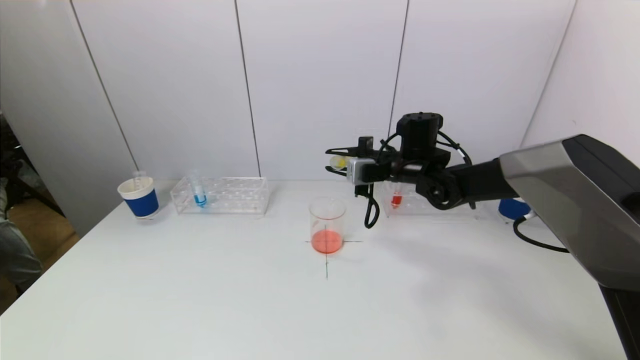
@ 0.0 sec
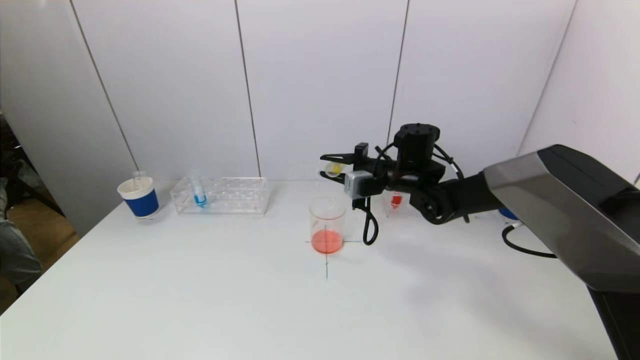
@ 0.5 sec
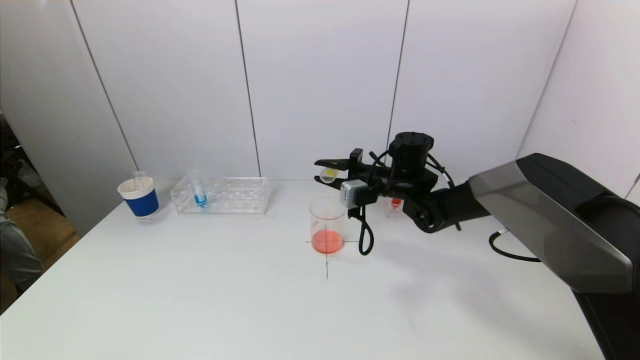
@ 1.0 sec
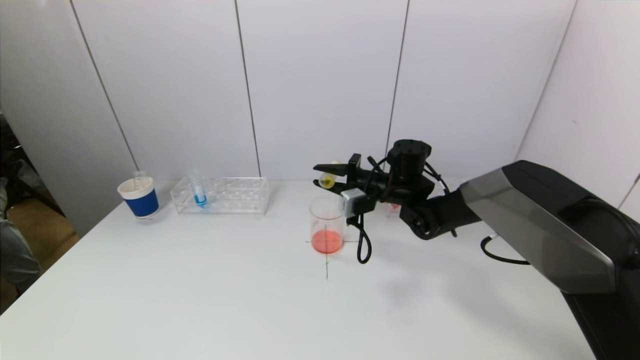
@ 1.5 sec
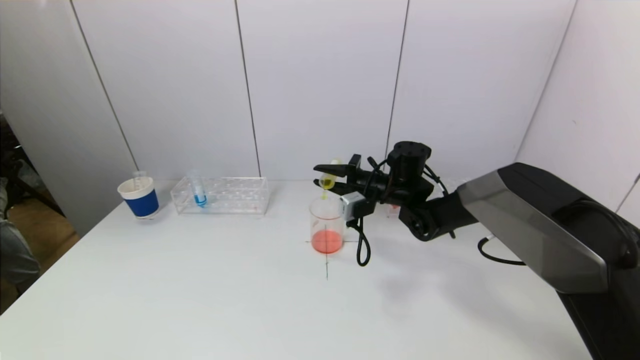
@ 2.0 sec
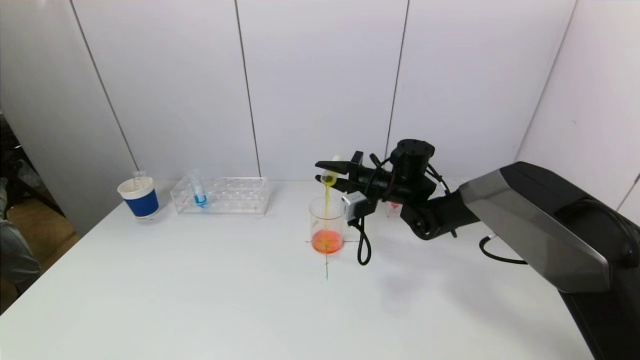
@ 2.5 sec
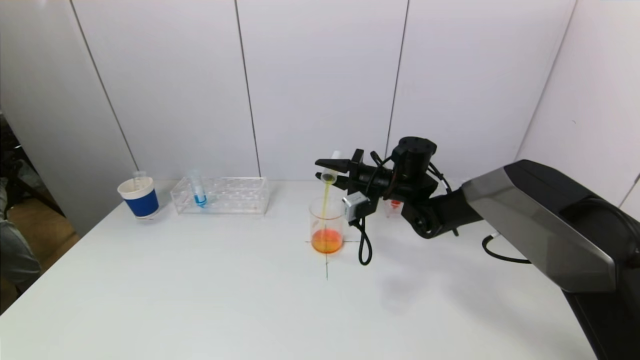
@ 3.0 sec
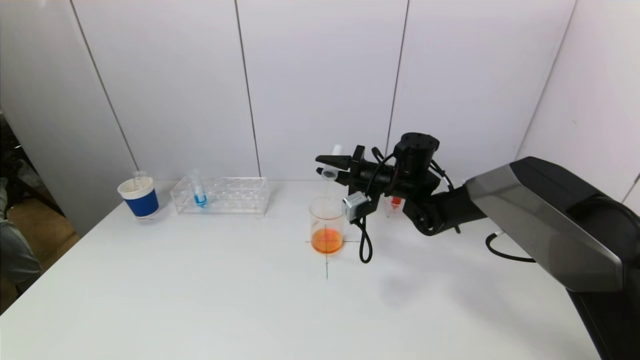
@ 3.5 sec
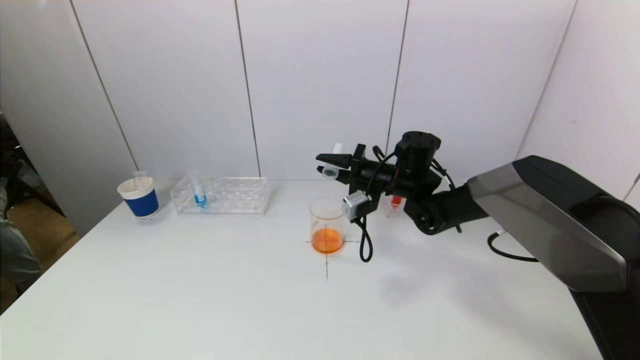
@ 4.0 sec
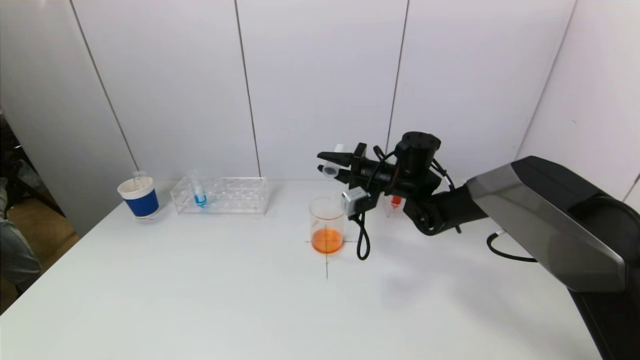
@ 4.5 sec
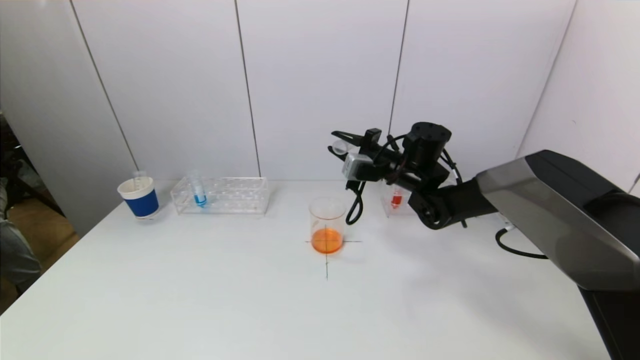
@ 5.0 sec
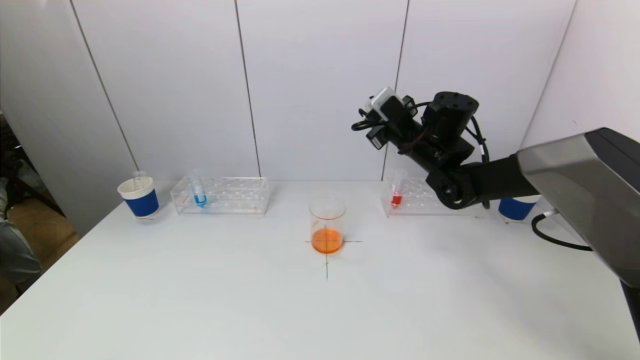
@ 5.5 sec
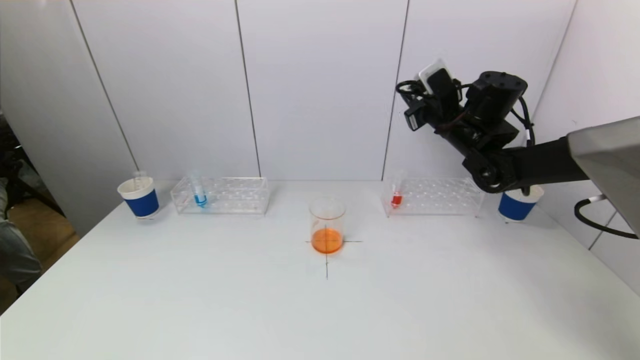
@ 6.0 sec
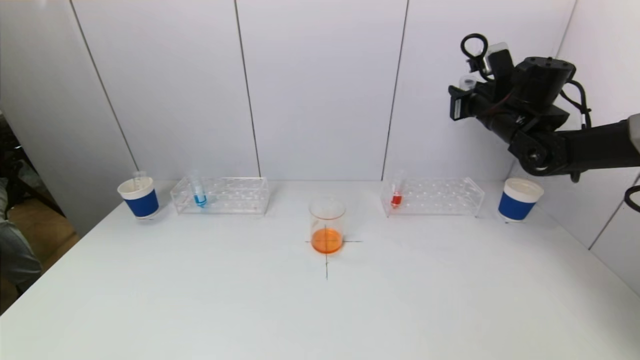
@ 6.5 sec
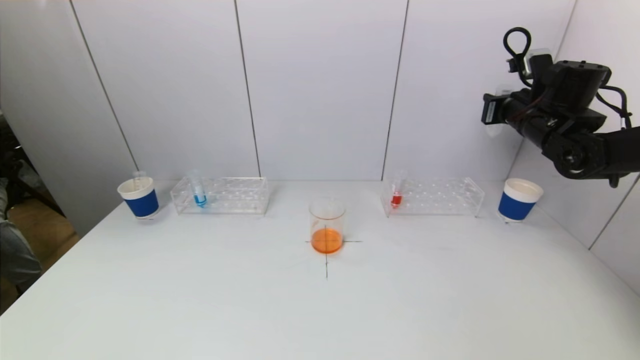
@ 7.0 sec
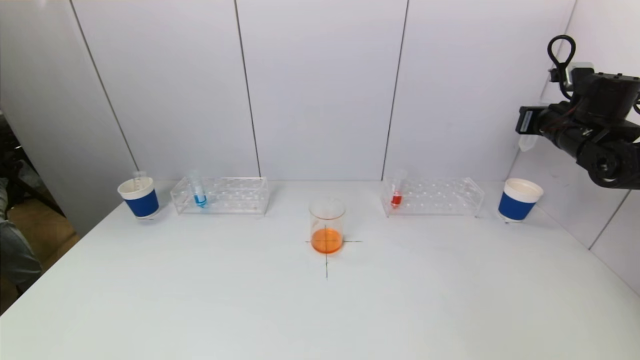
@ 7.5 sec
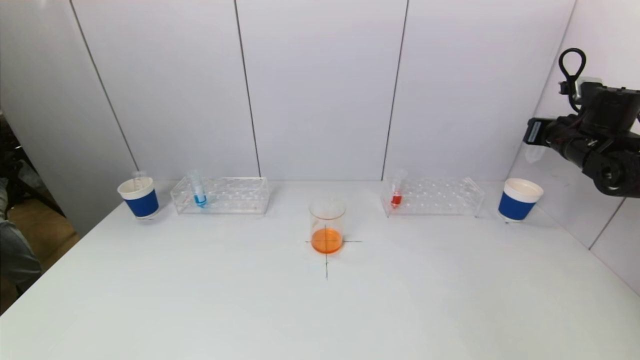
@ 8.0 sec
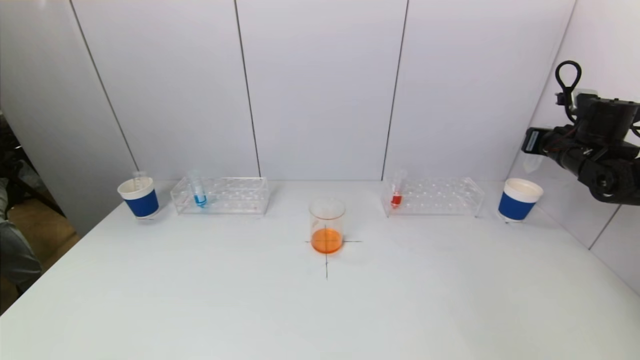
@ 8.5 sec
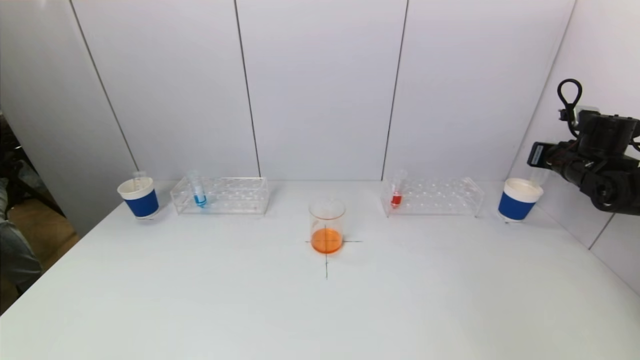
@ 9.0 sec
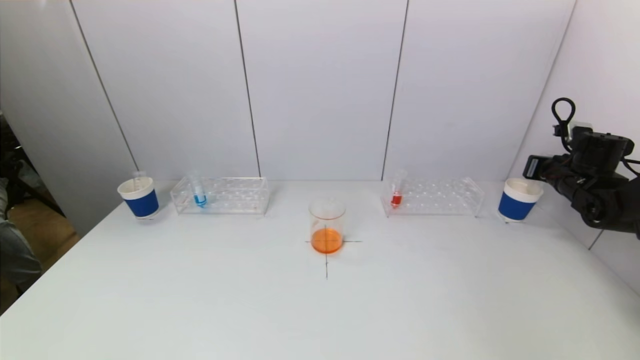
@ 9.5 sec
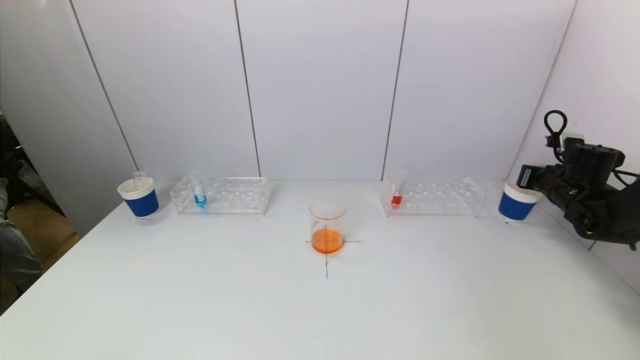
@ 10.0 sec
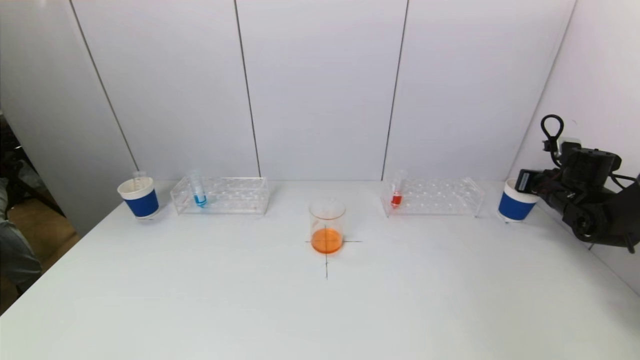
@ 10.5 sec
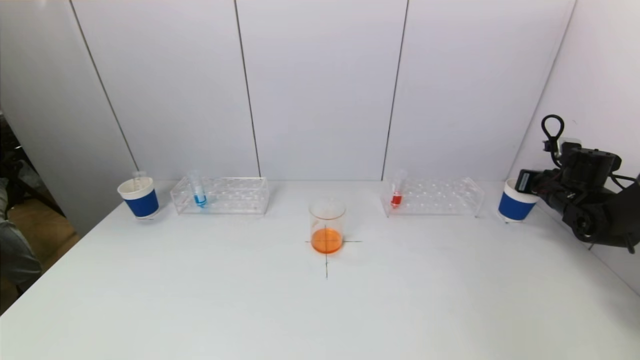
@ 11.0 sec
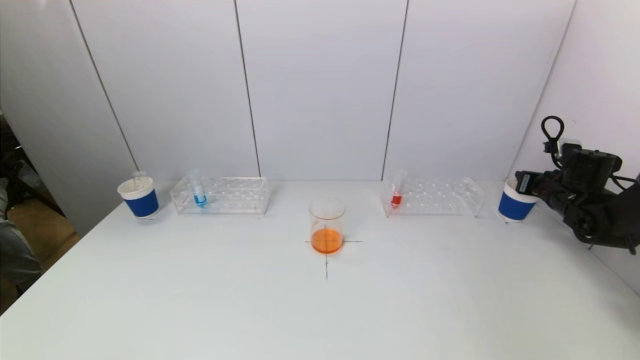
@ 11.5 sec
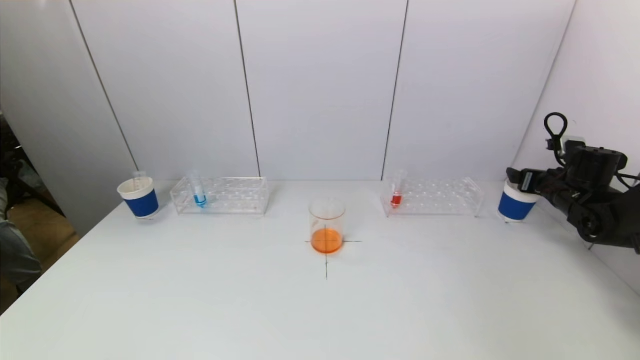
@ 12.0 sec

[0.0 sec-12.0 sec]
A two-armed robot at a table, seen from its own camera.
Task of the whole recording: pick up a test tube with pigment on left test tube rack and a test tube with pigment on right test tube rack by grippers and pour them into the beaker.
Step, 0.0 sec to 4.5 sec: Pour the yellow reagent into the graduated cylinder with the right gripper.
0.0 sec to 2.0 sec: The right gripper shifts by roughly 5 cm.
2.0 sec to 4.0 sec: There are only small adjustments of the grippers.
4.0 sec to 6.0 sec: The right gripper moves upward and to the right, roughly 15 cm.
6.0 sec to 8.0 sec: The right gripper is displaced to the right by some 20 cm.
8.0 sec to 10.0 sec: The right gripper moves downward, some 10 cm.
10.0 sec to 12.0 sec: The right gripper opens up.

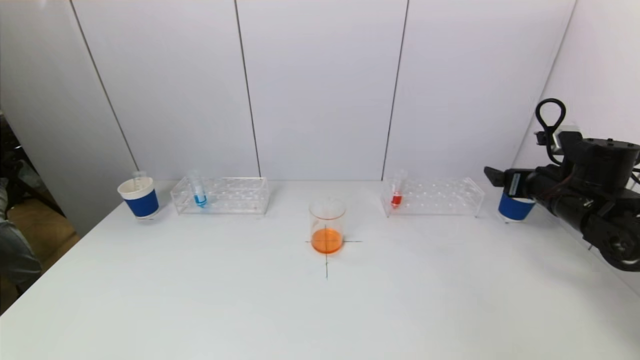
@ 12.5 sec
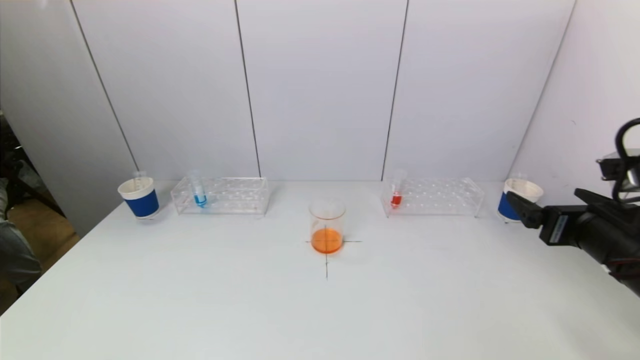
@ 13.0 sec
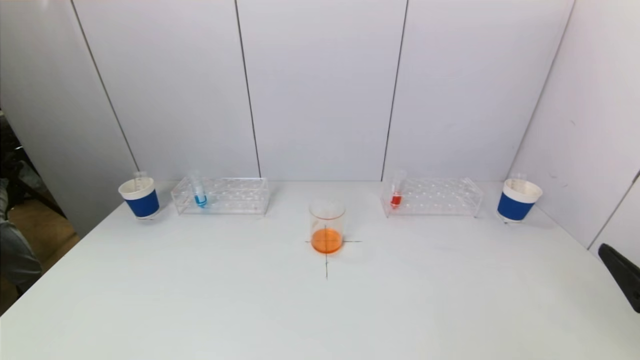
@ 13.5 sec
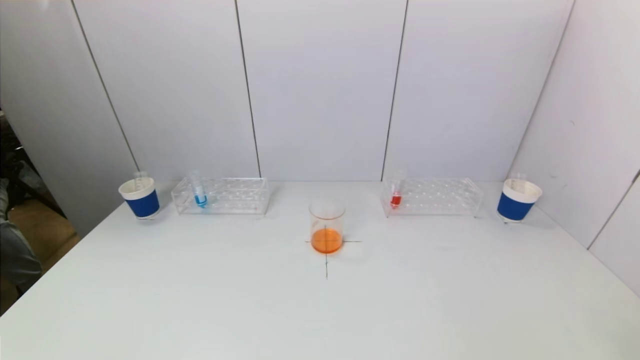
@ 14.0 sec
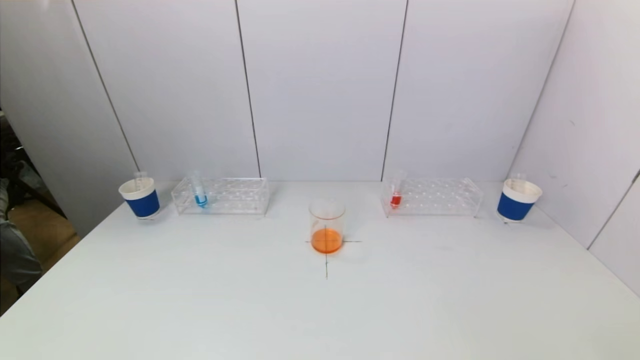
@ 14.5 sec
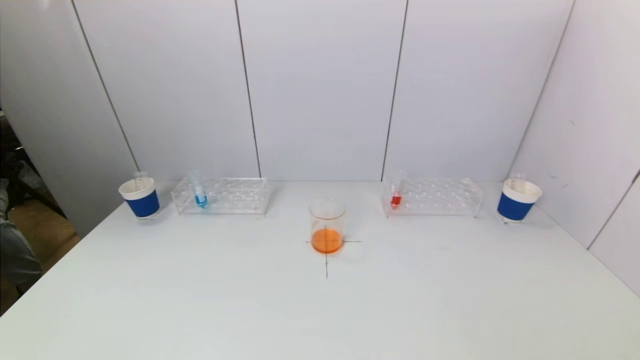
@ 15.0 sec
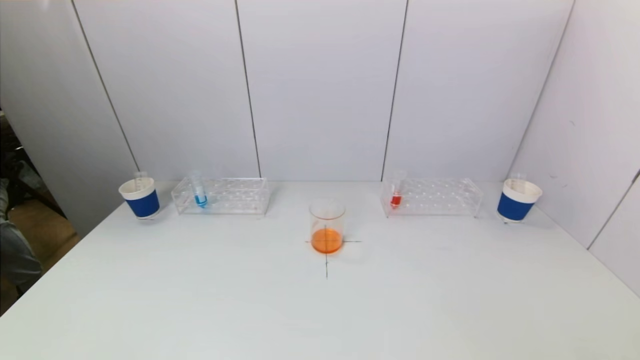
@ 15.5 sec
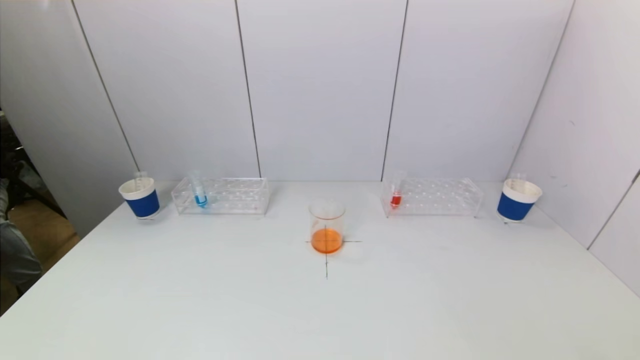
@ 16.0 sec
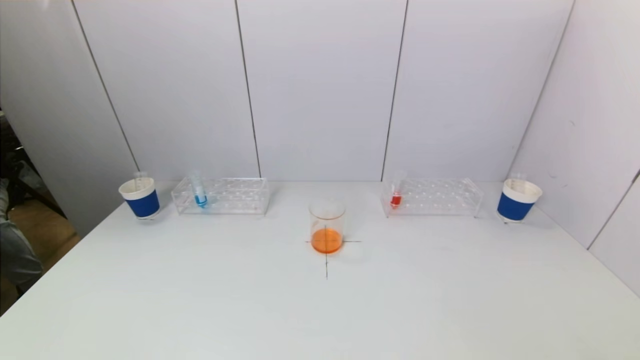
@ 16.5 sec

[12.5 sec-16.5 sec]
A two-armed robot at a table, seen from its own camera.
Task of the whole recording: pick up a test tube with pigment on left test tube rack and a test tube with pigment on right test tube rack by grippers and pour them into the beaker.
12.5 sec to 14.5 sec: The right gripper goes about 35 cm backward.
